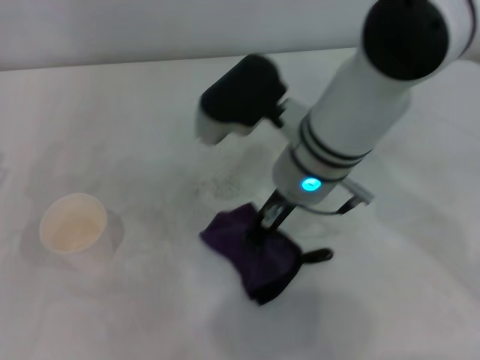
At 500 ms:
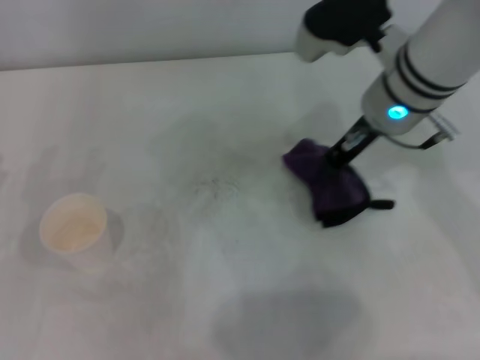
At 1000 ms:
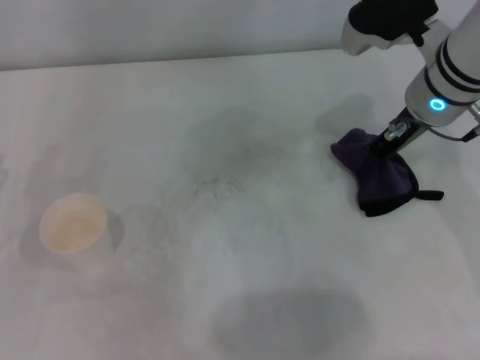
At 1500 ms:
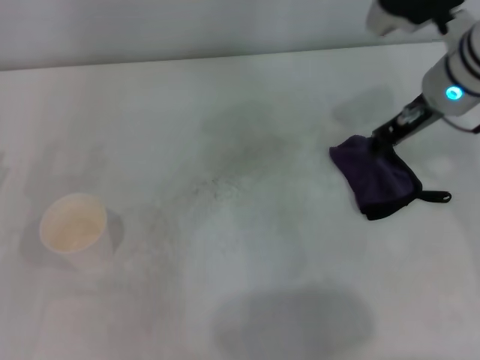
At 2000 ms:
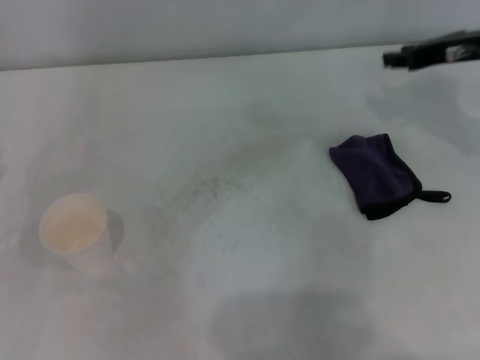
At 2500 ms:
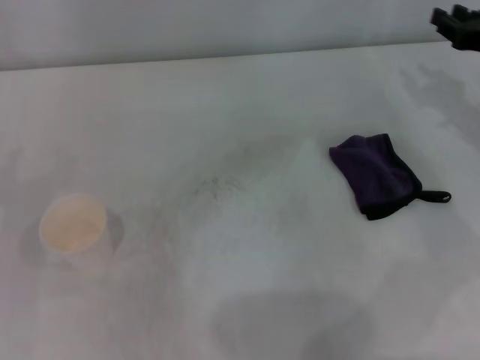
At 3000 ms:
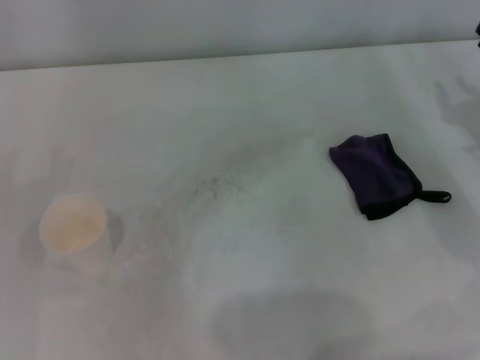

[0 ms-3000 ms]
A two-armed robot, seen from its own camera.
Step, 500 ms to 1000 ms: Place the rag on the table with the right gripper.
0 ms to 1500 ms: The right gripper shifts roughly 15 cm to the right.
1500 ms to 3000 ms: The right gripper shifts about 20 cm to the right, downward and backward, and opens its fingers.
